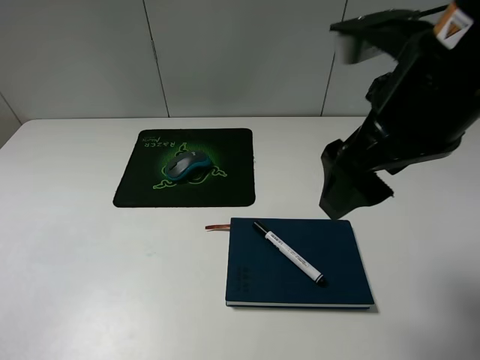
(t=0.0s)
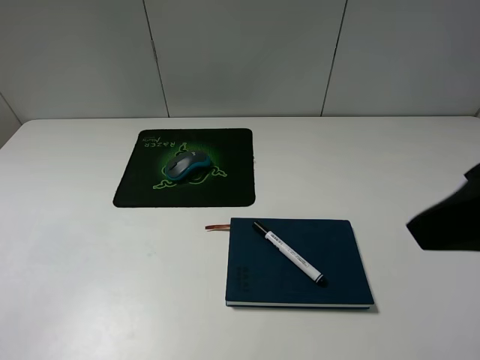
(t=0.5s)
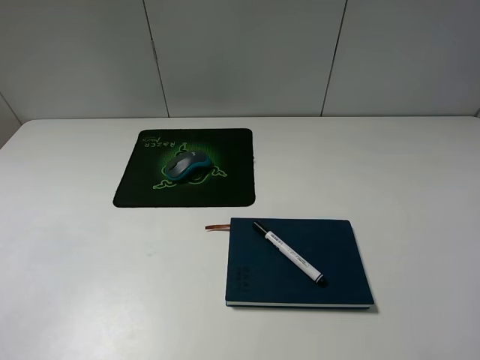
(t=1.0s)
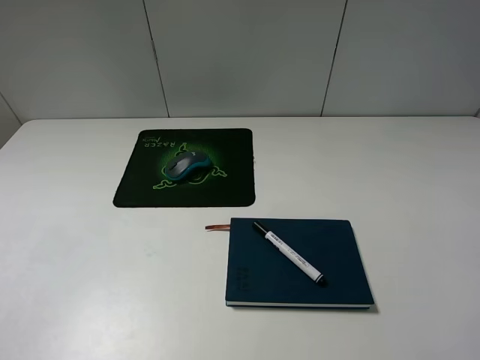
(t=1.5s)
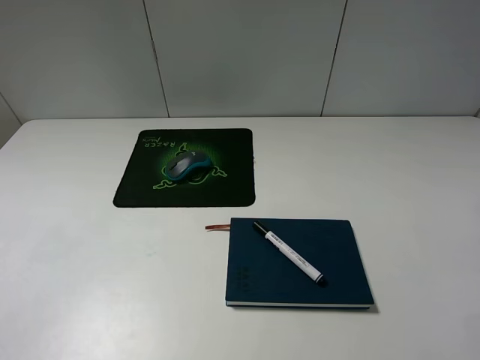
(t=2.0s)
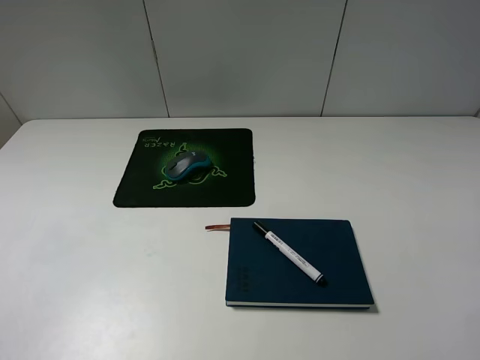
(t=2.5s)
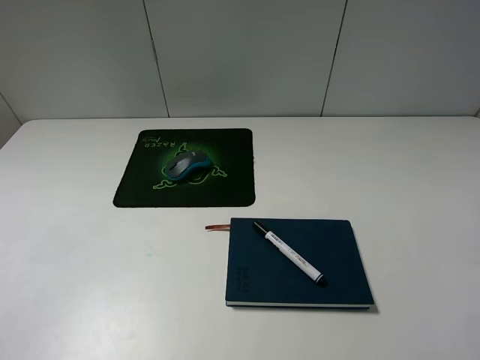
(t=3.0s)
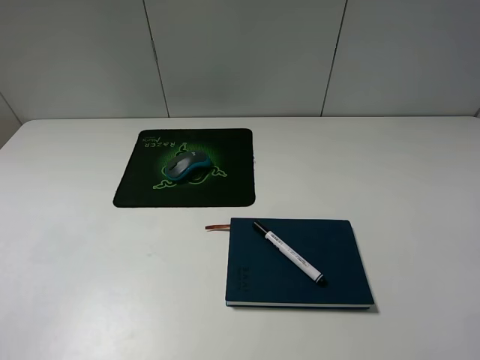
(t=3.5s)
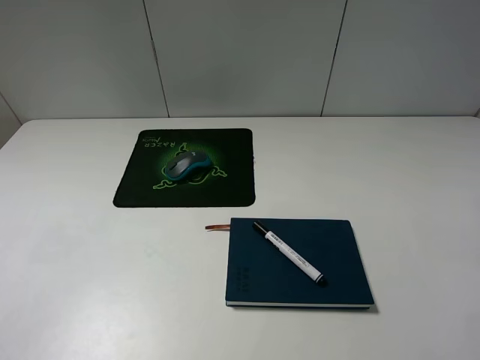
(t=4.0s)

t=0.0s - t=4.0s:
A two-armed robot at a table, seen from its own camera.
t=0.0s - t=2.0s: The right gripper travels backward and to the right by roughly 25 cm.
